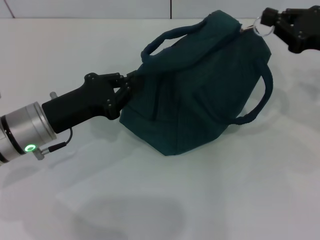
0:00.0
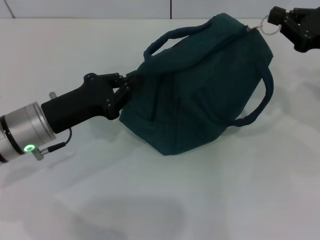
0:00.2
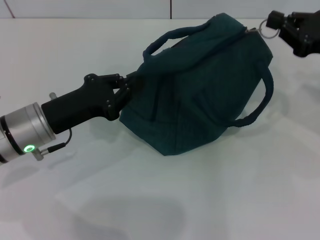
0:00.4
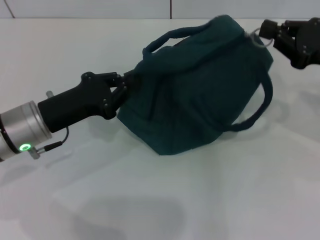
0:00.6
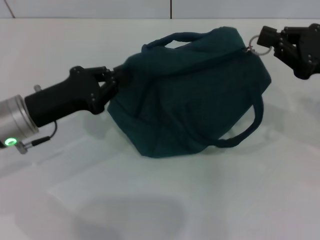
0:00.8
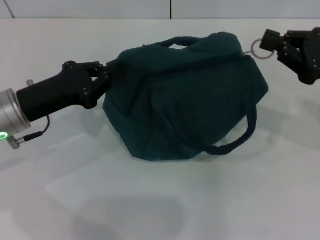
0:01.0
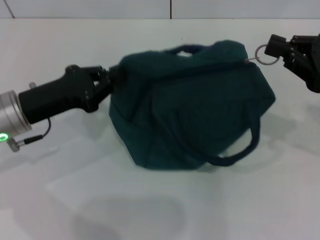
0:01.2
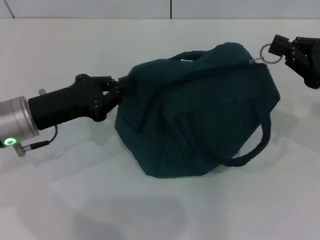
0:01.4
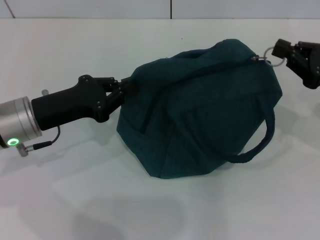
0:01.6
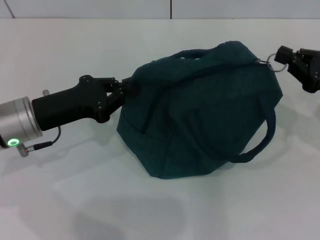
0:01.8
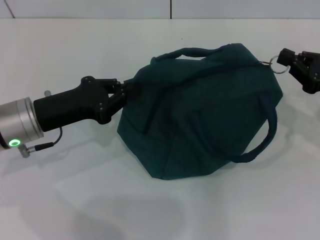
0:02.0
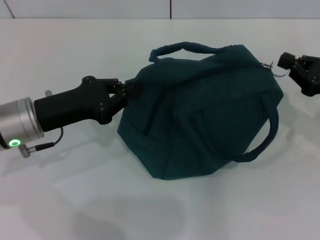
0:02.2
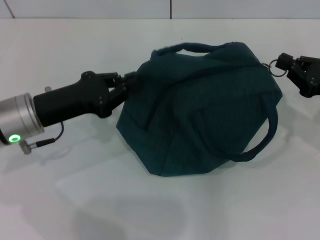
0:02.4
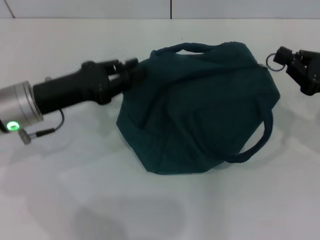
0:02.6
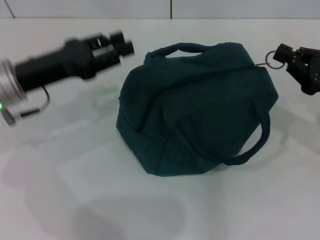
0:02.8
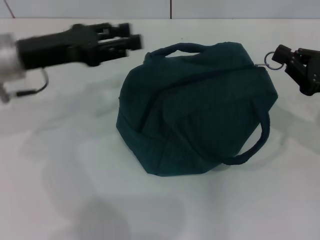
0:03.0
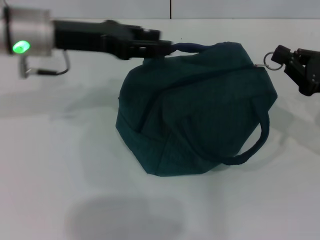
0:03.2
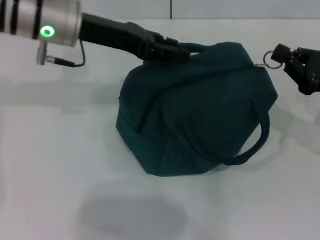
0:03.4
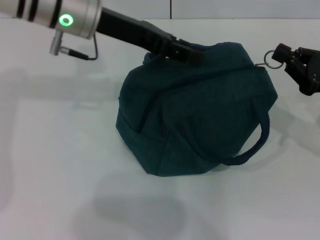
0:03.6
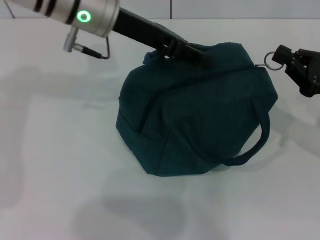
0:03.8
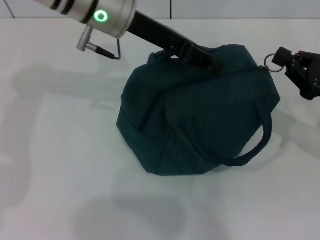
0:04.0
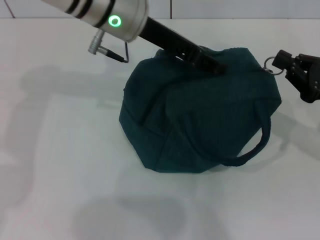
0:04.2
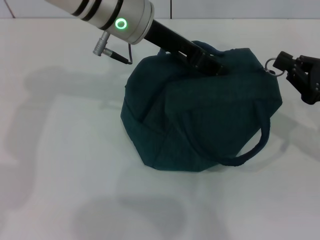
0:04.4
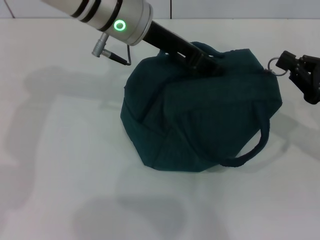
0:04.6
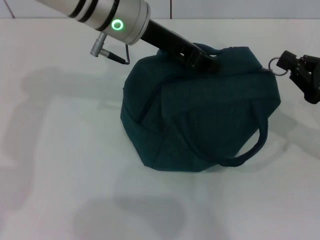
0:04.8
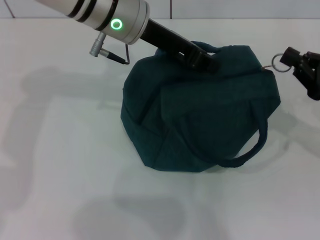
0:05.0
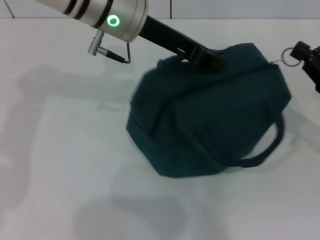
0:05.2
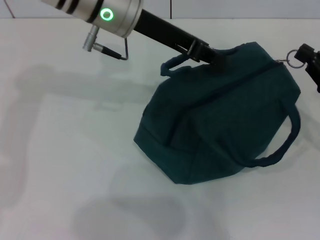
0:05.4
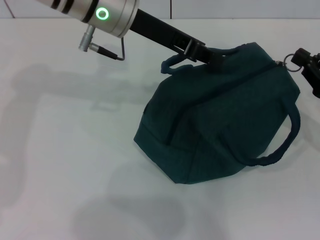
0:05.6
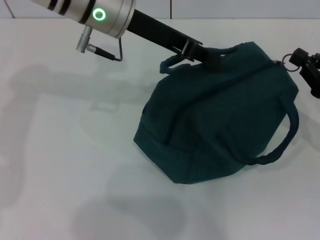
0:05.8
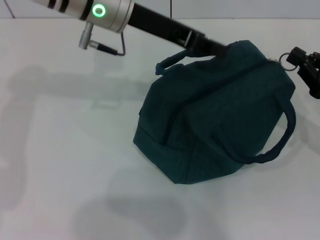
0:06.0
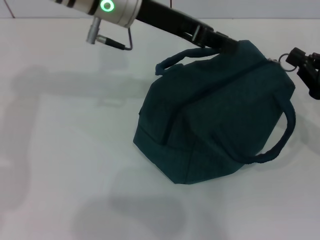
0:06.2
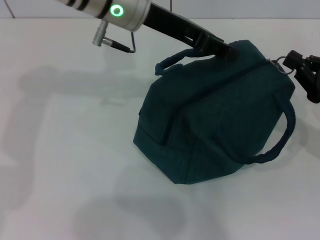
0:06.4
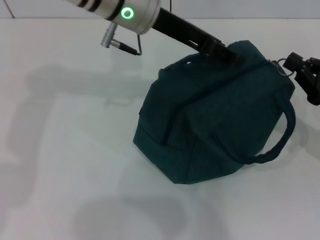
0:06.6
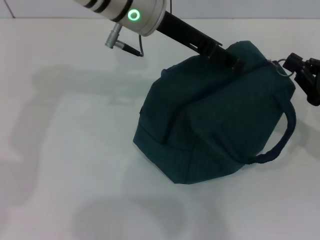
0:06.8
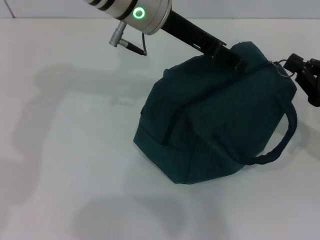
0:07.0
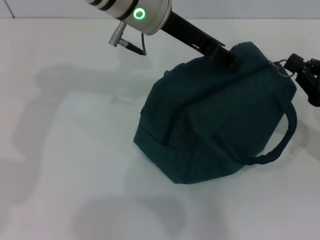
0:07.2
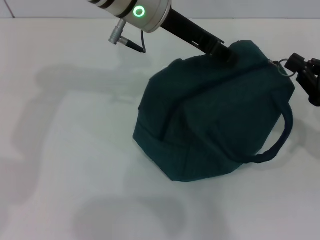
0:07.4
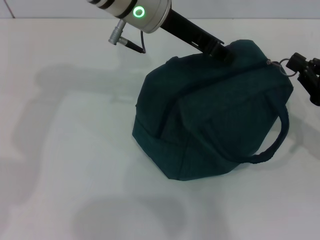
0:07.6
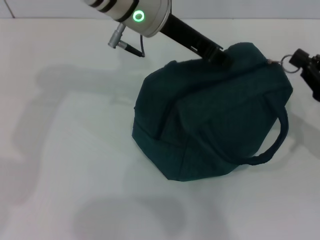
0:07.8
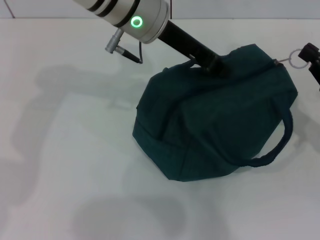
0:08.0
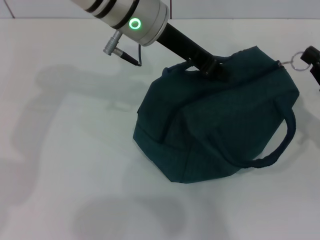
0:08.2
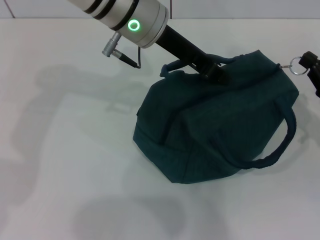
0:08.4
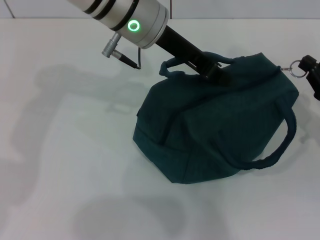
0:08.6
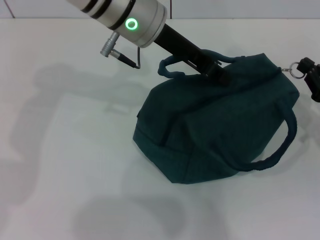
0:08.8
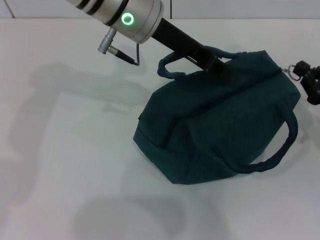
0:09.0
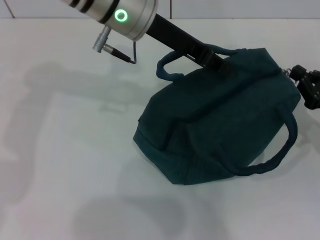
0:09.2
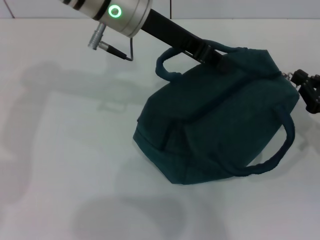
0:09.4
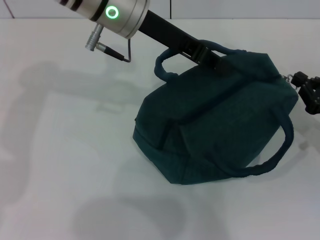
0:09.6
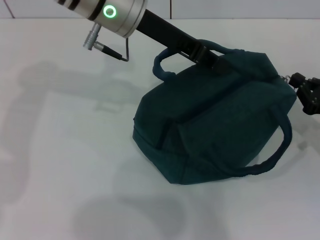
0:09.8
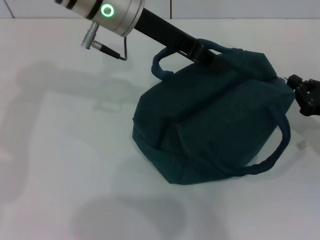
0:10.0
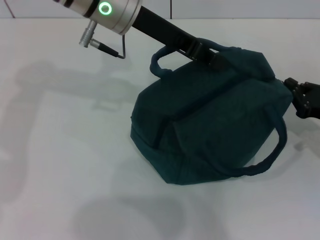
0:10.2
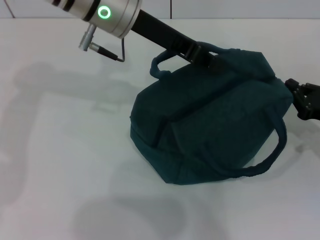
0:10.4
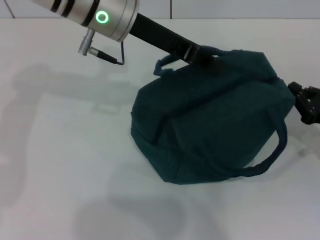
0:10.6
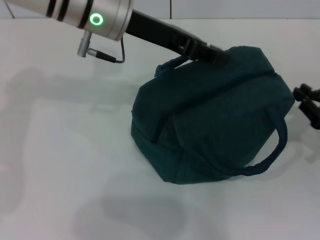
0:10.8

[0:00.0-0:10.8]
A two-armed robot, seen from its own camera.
Step, 0:00.0 to 0:10.6: Zip up the lunch bag with your right hand.
0:00.0 to 0:01.6: The right gripper shifts by roughly 5 cm.
0:01.6 to 0:03.0: The left gripper shifts some 10 cm upward, and opens up.
0:03.0 to 0:04.6: The left gripper moves to the right, approximately 15 cm.
0:04.6 to 0:06.2: The left gripper closes its fingers.
0:06.2 to 0:07.8: The left gripper opens and closes again.
0:07.8 to 0:10.8: The grippers stay close to where they were, moving slightly.

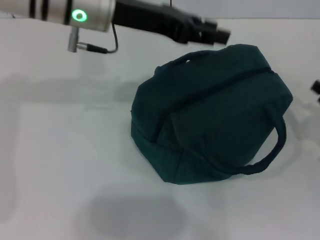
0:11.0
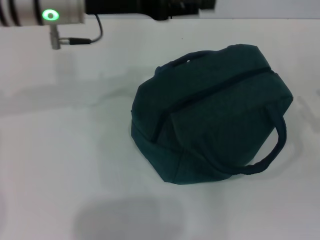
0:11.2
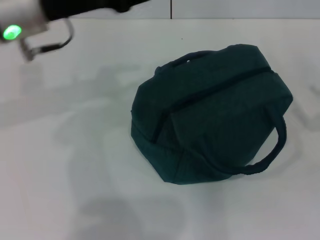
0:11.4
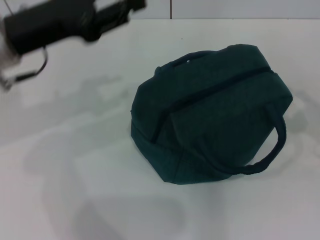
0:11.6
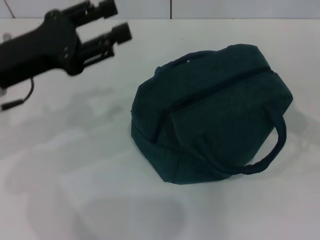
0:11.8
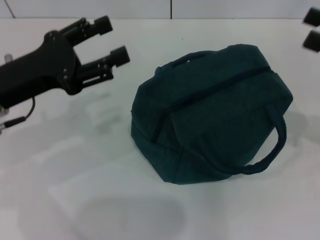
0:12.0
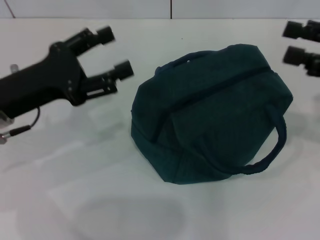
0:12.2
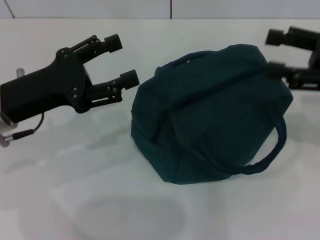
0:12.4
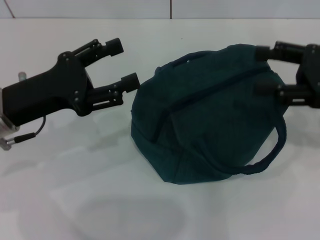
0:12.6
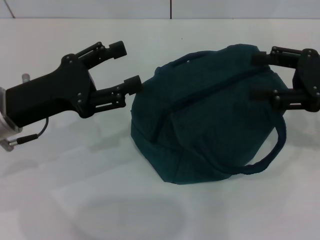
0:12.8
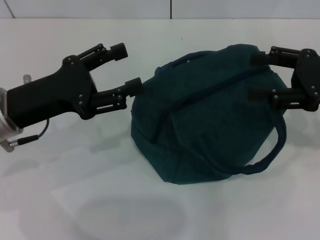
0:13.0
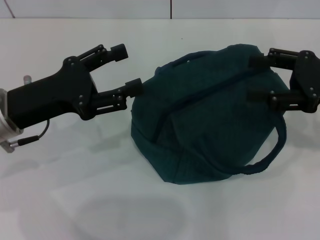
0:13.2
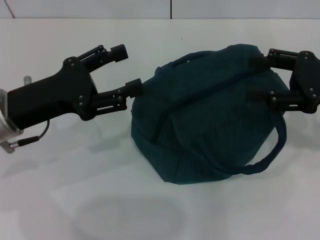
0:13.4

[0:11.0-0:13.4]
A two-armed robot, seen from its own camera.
0:11.0 to 0:12.2: The left gripper shifts some 20 cm to the left, backward and downward, and opens its fingers, while the right gripper travels upward and forward by about 15 cm, and opens its fingers.
0:12.2 to 0:13.4: The grippers stay close to where they were, moving slightly.

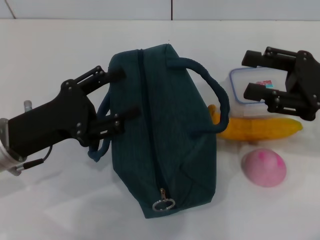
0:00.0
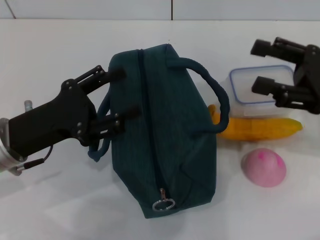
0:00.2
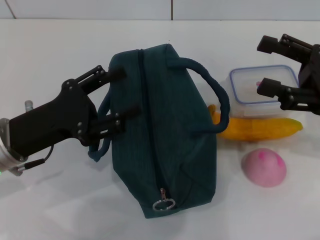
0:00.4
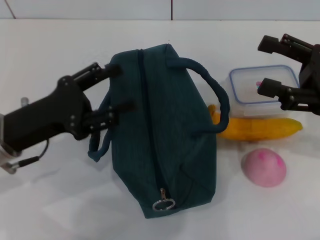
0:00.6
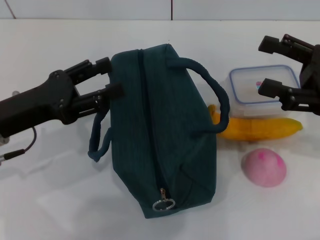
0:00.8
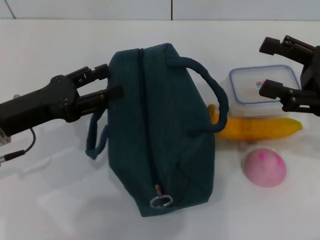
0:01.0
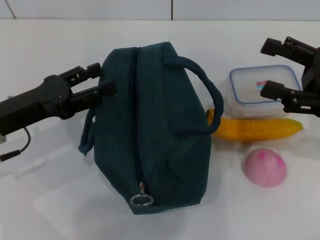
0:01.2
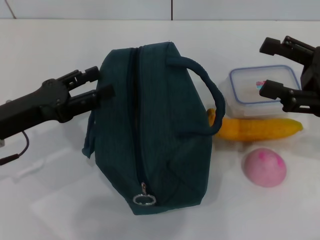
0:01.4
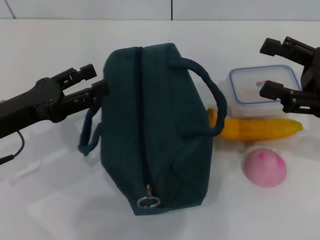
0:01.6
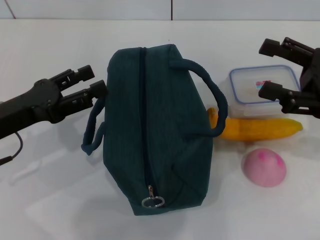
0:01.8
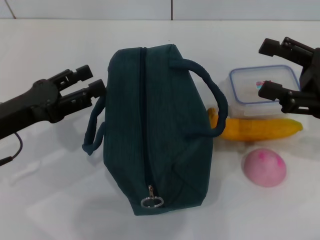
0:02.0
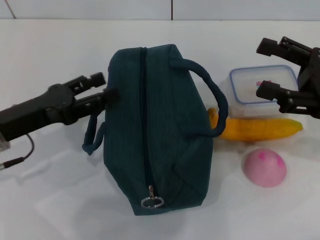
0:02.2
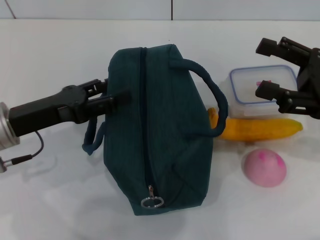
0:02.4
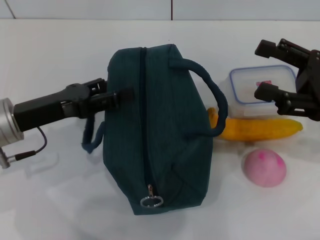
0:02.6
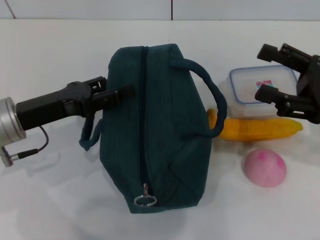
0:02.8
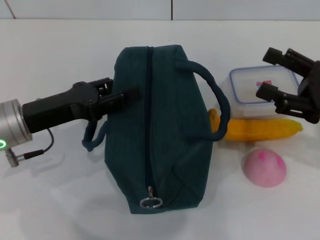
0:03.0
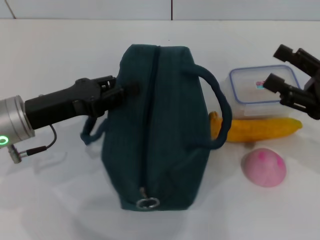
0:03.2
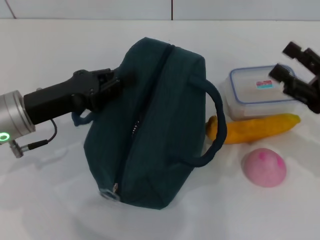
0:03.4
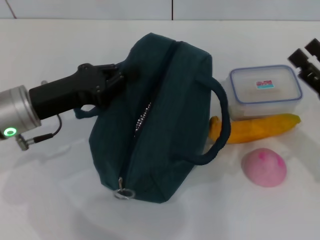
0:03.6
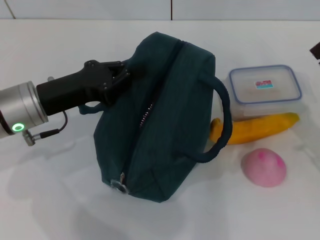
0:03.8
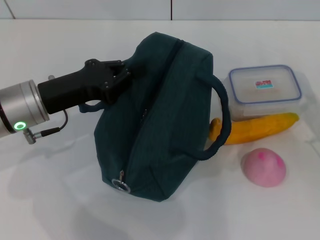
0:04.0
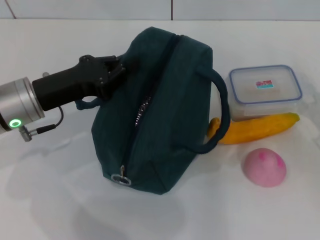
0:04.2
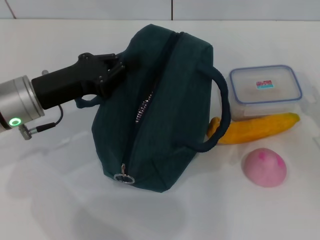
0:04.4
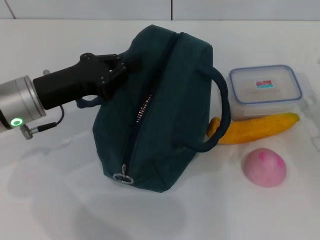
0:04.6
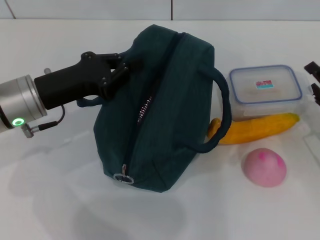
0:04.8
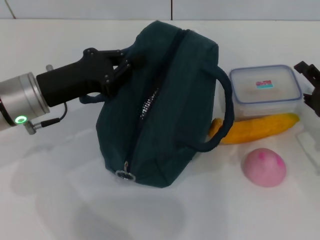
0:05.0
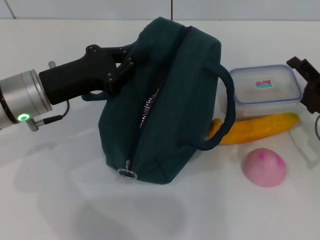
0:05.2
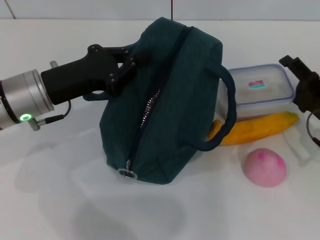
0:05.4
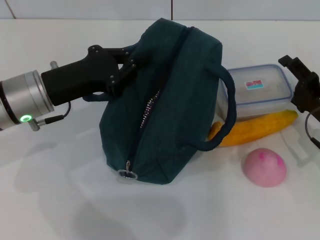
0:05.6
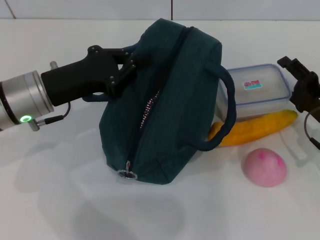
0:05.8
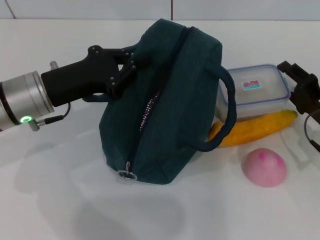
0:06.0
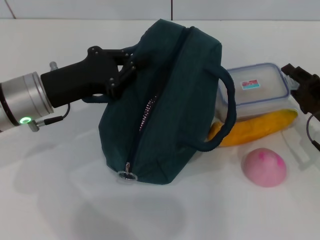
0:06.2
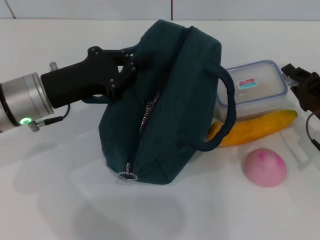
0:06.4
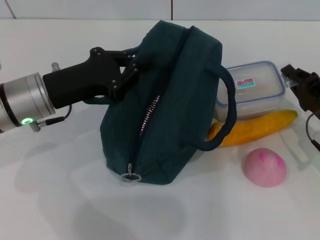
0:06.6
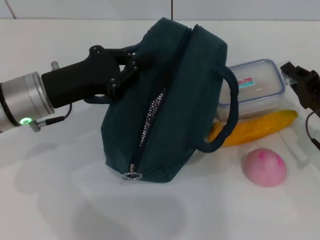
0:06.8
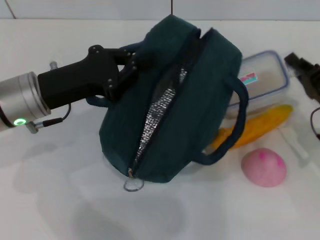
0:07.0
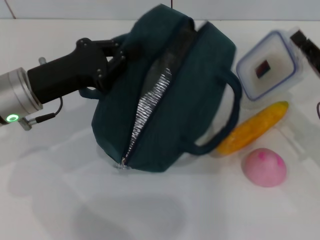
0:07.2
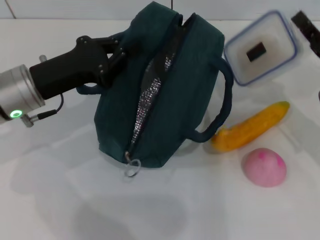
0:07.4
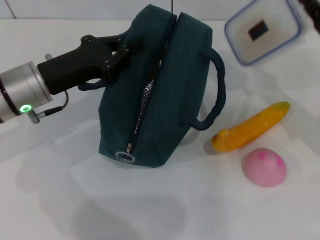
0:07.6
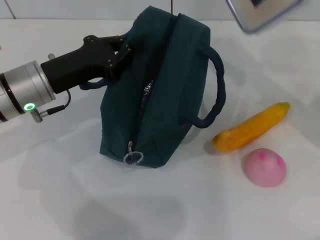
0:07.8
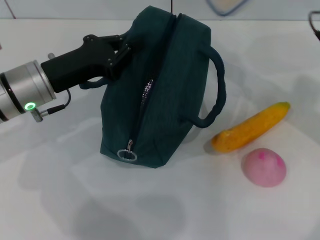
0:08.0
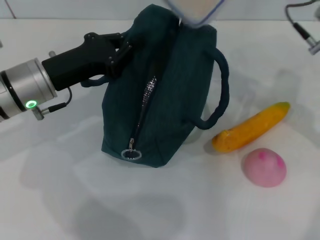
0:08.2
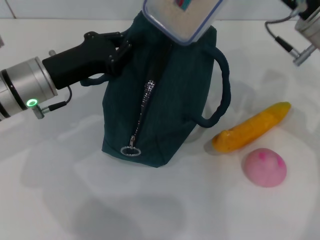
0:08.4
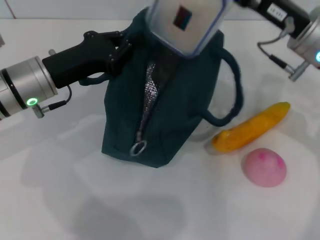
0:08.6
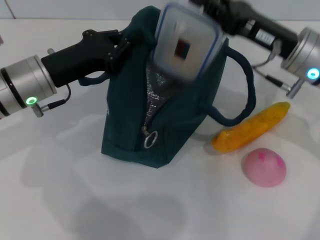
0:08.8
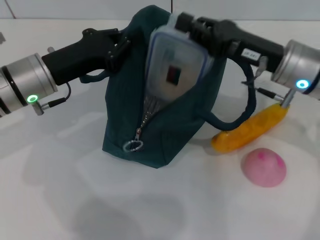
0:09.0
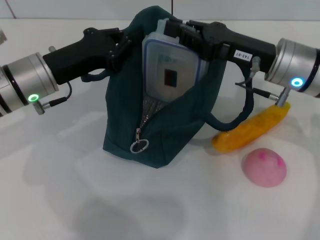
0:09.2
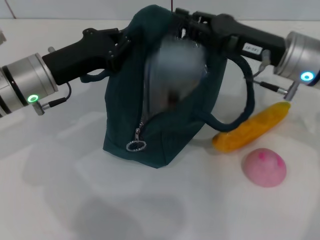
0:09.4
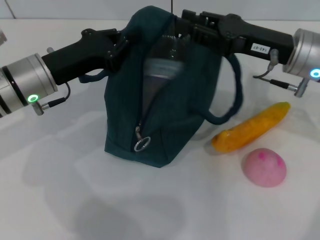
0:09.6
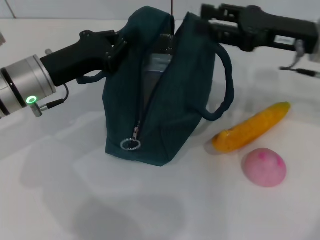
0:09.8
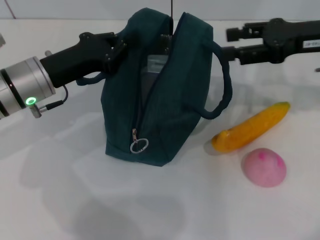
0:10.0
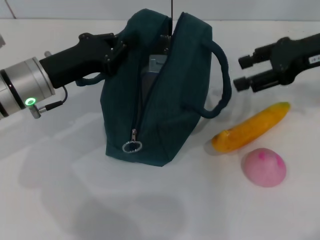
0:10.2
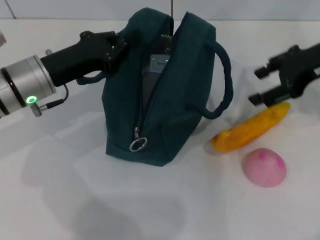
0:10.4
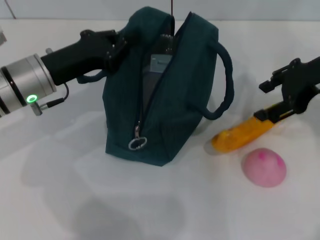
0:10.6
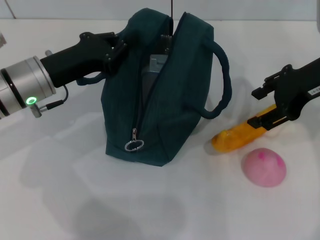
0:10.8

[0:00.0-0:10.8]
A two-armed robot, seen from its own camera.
Step, 0:00.0 to 0:03.4: Hold the lunch bag with your left hand.
Step, 0:03.6 to 0:06.8: Pick up the lunch box with your right hand.
Step, 0:07.2 to 0:09.4: Place the lunch box into the lunch bag with your right hand.
0:01.6 to 0:03.0: The grippers move only a little.
0:03.0 to 0:04.6: The right gripper heads downward, covering roughly 10 cm, while the left gripper closes.
0:04.6 to 0:06.2: The right gripper moves roughly 5 cm, and closes up.
0:06.2 to 0:07.8: The right gripper heads upward, covering about 10 cm, and closes.
0:07.8 to 0:09.2: The right gripper heads to the left, covering roughly 10 cm.
0:09.2 to 0:10.8: The right gripper goes some 10 cm upward and to the right, and opens.
